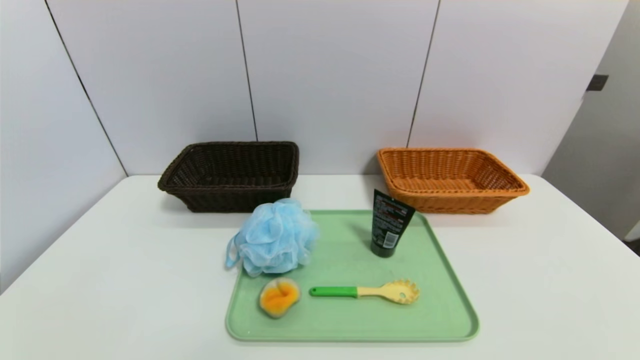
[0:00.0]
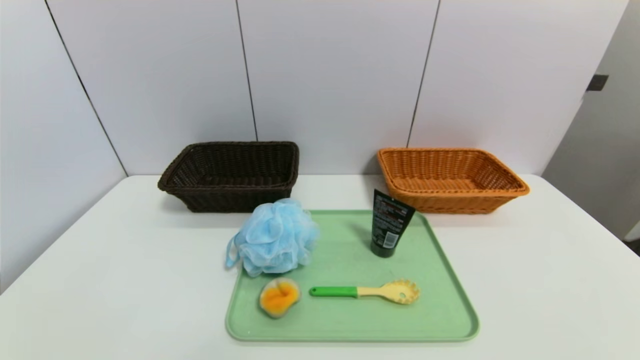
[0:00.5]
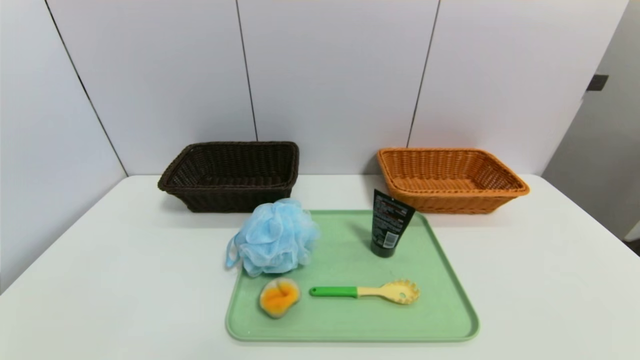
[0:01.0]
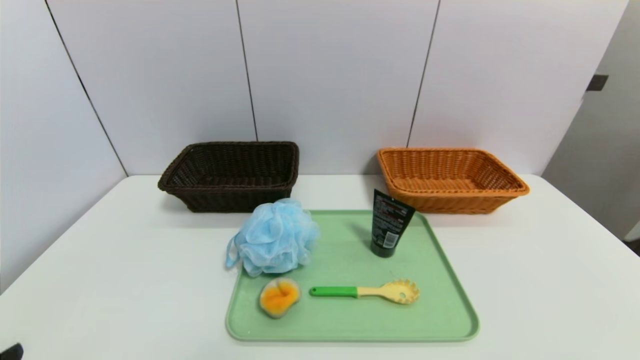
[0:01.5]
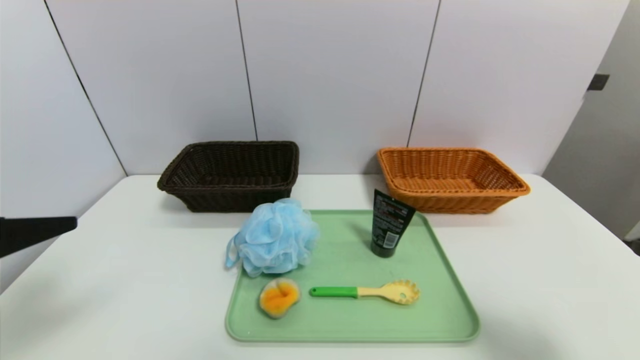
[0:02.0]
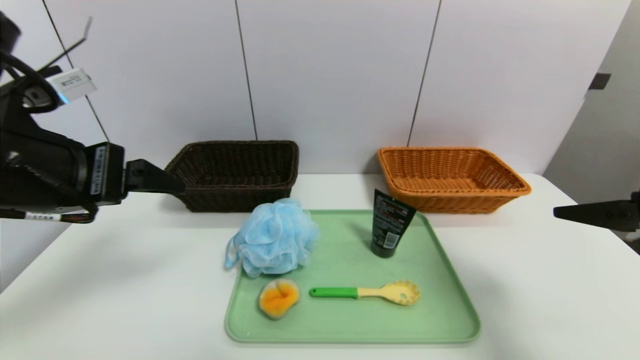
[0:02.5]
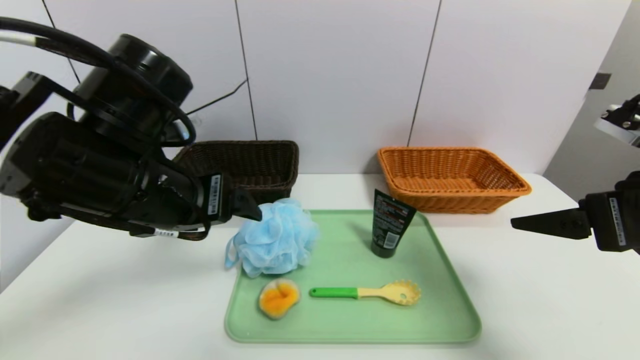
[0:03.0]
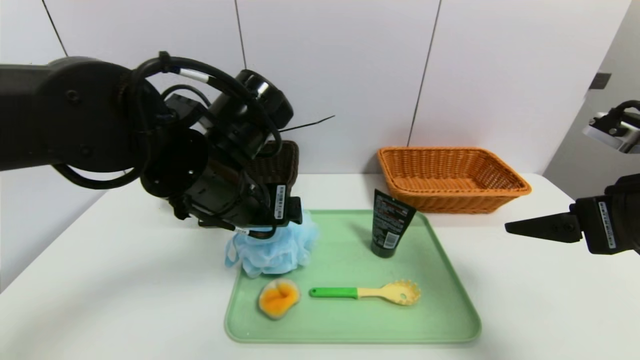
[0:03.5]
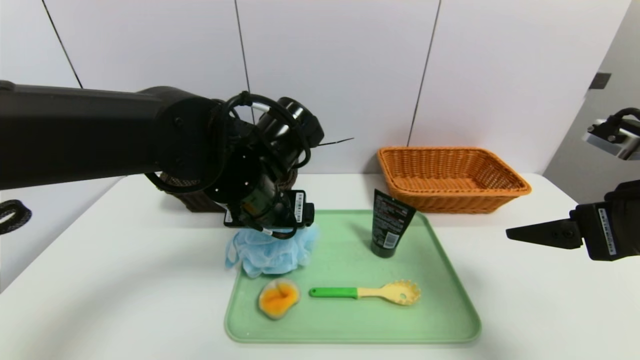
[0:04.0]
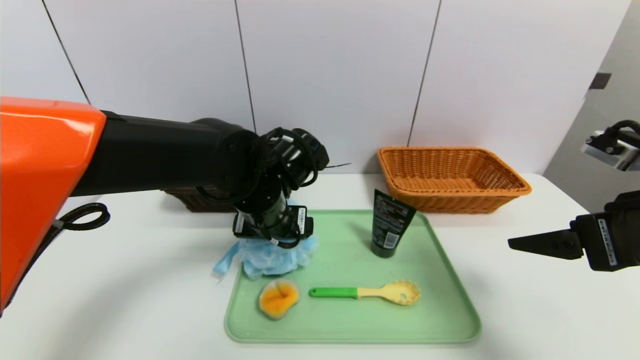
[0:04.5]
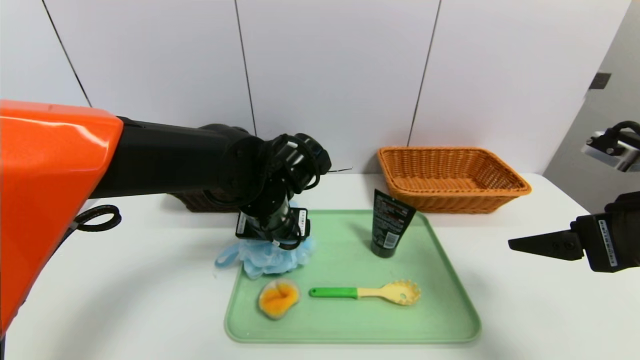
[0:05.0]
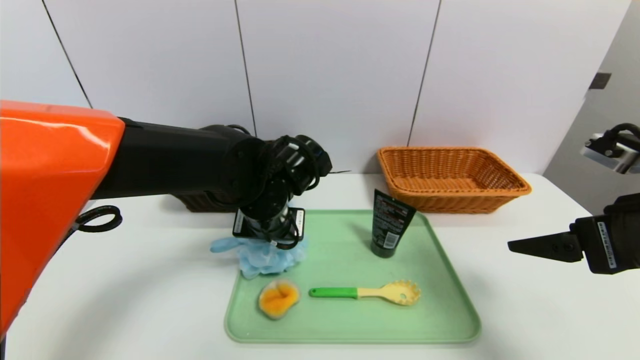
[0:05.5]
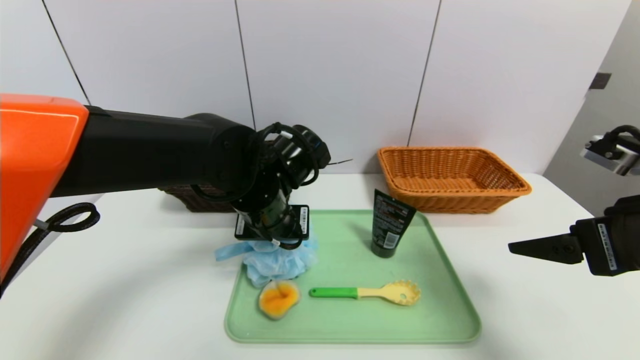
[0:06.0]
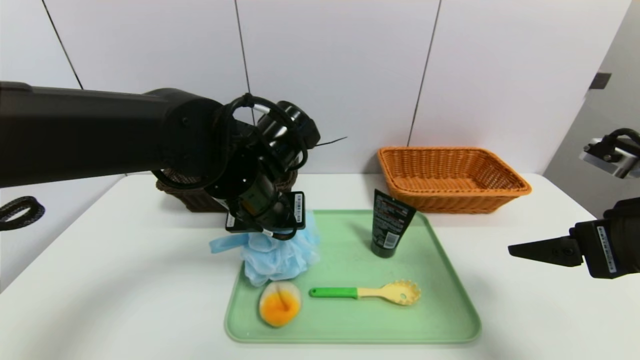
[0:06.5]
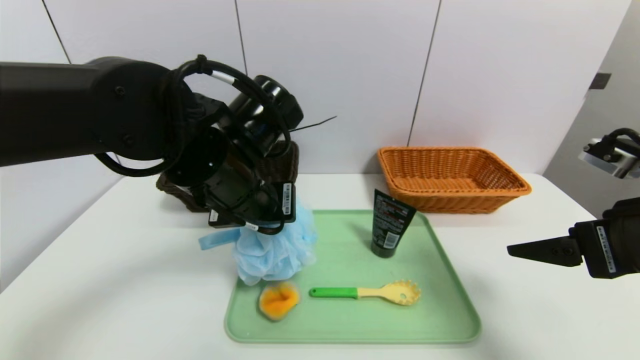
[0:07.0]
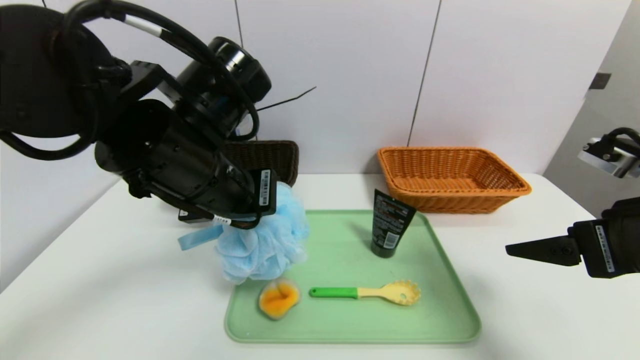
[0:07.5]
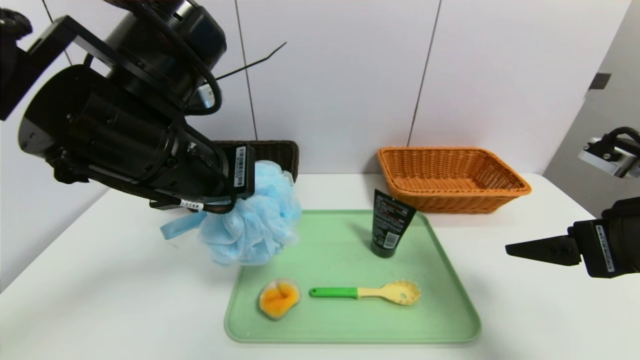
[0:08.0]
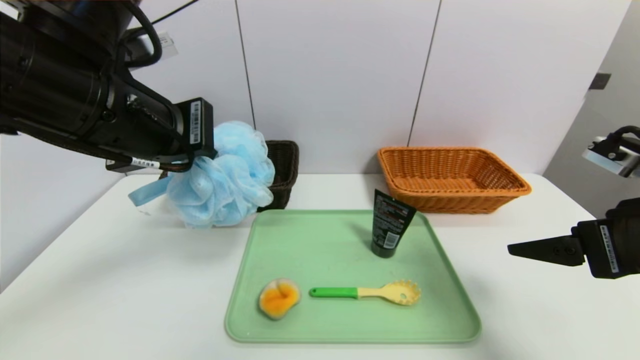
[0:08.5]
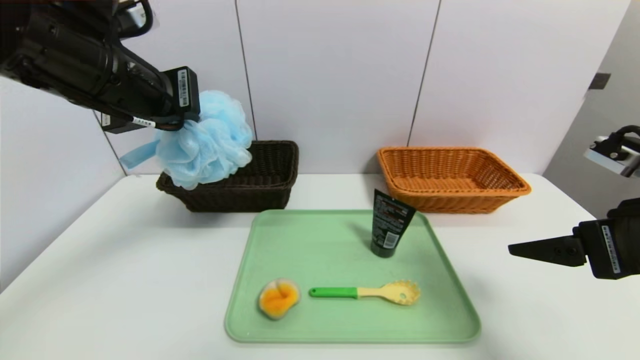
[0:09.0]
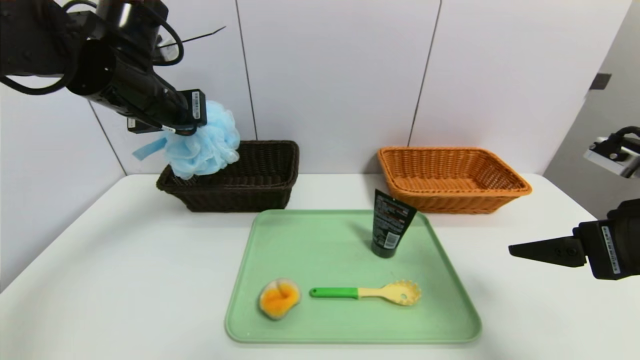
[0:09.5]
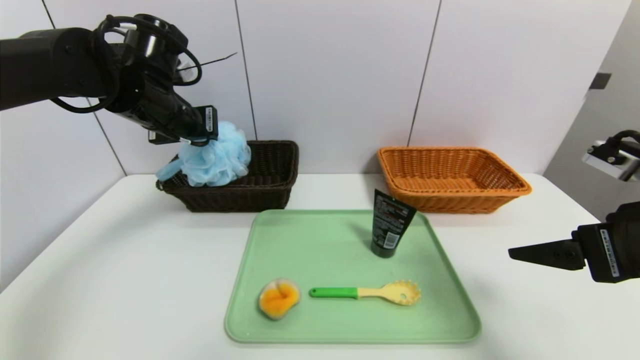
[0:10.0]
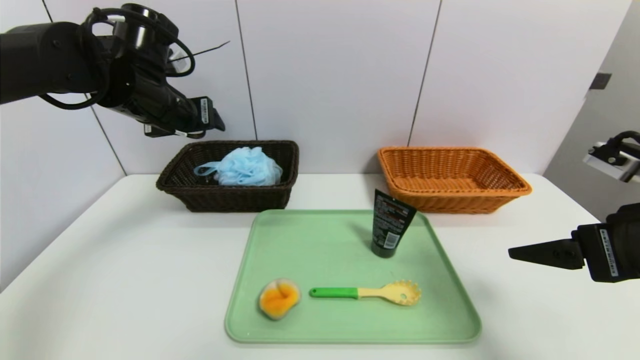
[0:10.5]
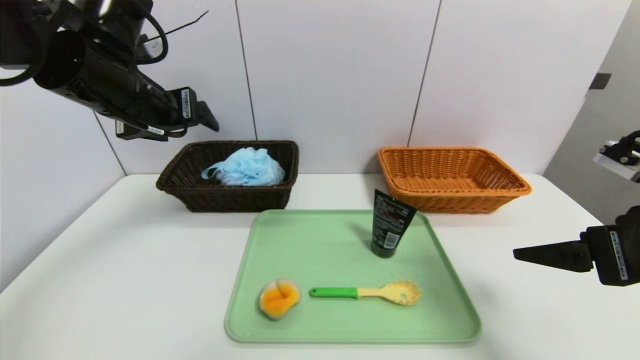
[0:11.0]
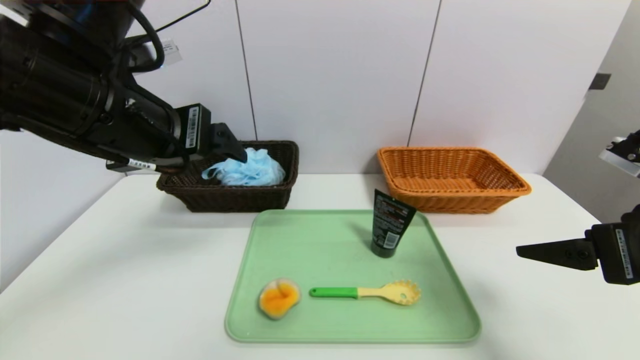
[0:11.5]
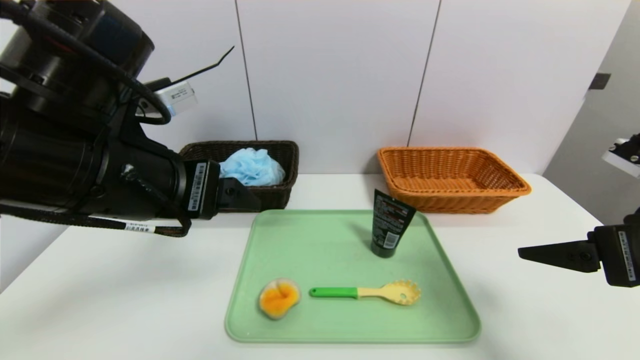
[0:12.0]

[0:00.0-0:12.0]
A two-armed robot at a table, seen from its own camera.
Task of the whole recording: place the food in the right basket with the right gripper, and place the non food items in the left basket with the left gripper.
Step, 0:00.0 to 0:10.5: Grasp the shower sphere and put it in the left basket.
0:00.0 to 0:02.0: Both grippers move upward and forward, roughly 25 cm.
0:02.0 to 0:04.0: The right gripper is displaced forward by about 10 cm, while the left gripper travels to the right and forward by some 30 cm.
0:04.0 to 0:06.0: The left gripper closes up.
0:06.0 to 0:08.0: The left gripper travels upward, backward and to the left by about 15 cm.
0:08.0 to 0:10.0: The left gripper shifts about 20 cm forward and to the left.
0:10.0 to 0:12.0: The left gripper goes about 20 cm backward, and opens.

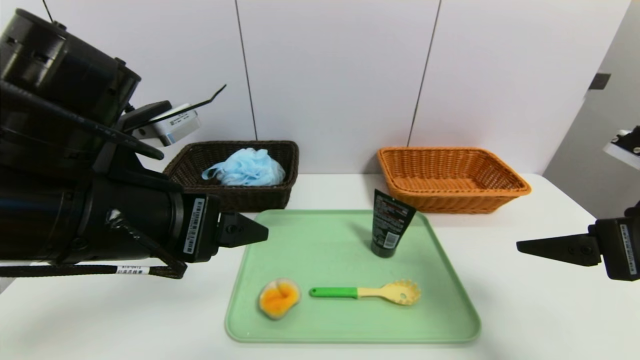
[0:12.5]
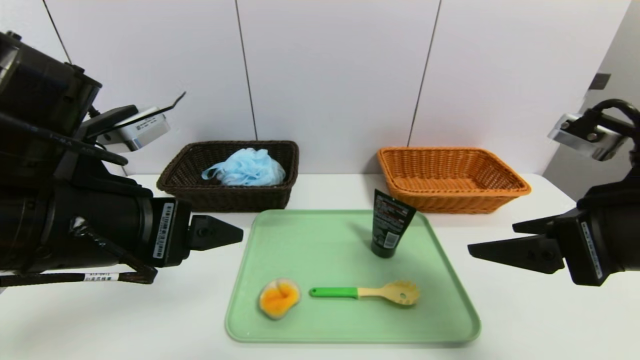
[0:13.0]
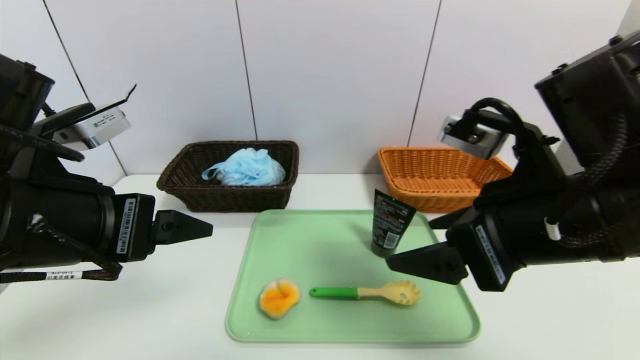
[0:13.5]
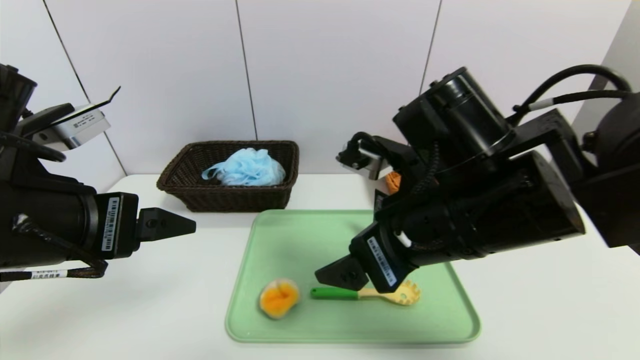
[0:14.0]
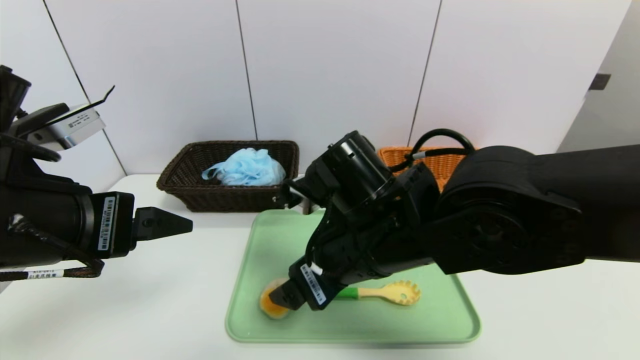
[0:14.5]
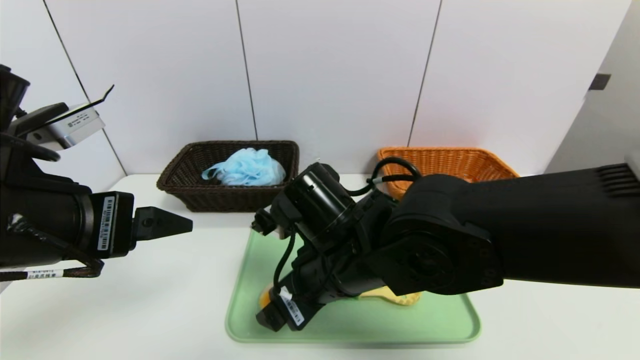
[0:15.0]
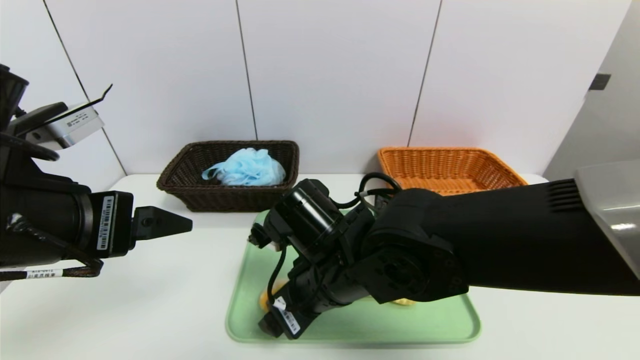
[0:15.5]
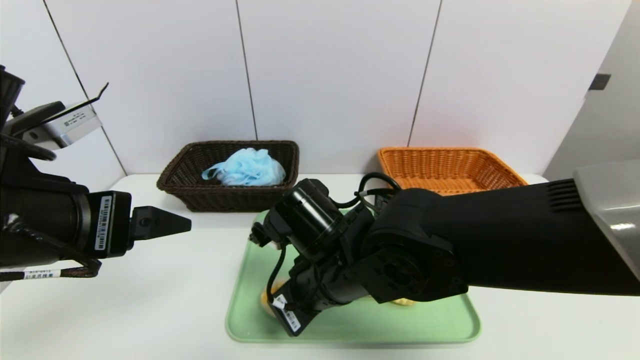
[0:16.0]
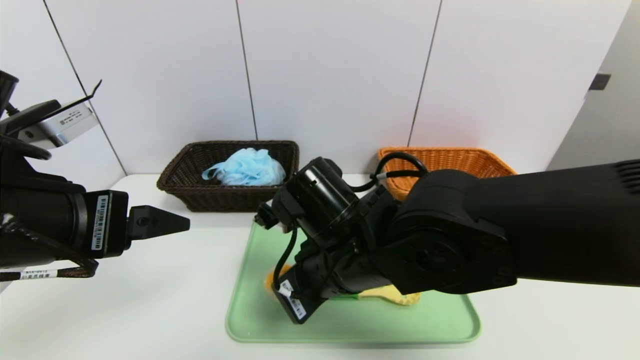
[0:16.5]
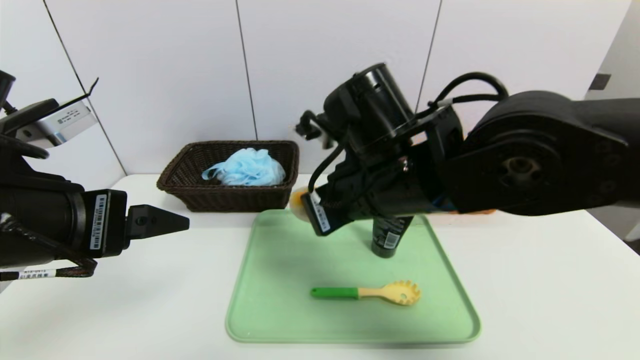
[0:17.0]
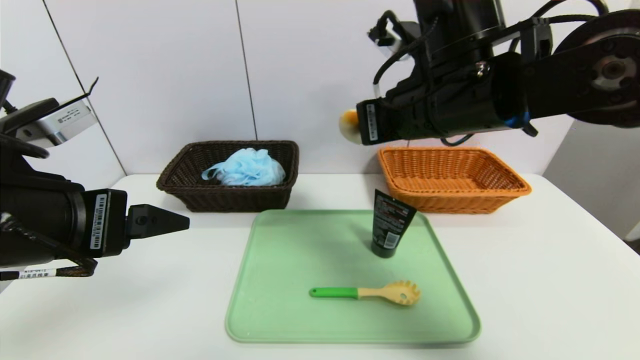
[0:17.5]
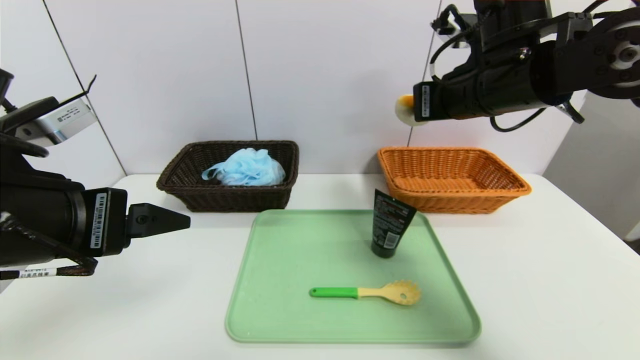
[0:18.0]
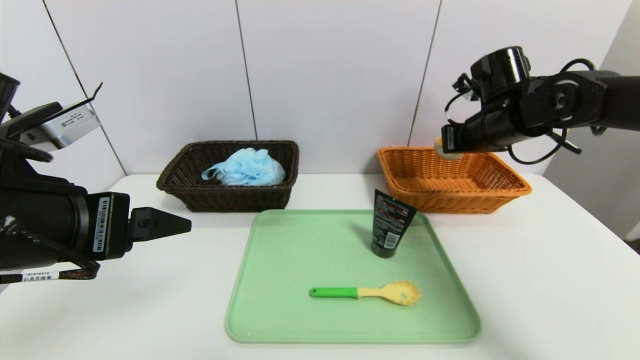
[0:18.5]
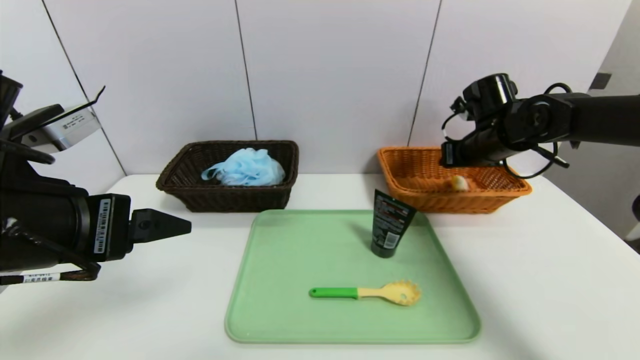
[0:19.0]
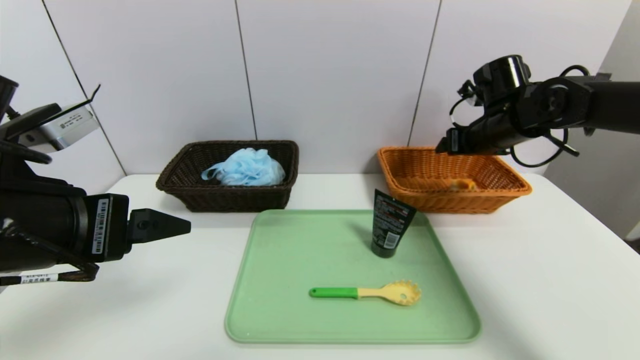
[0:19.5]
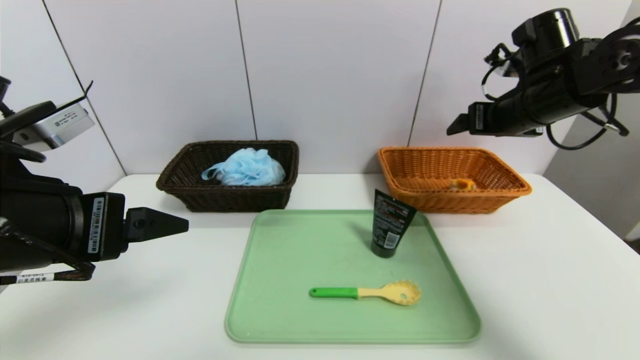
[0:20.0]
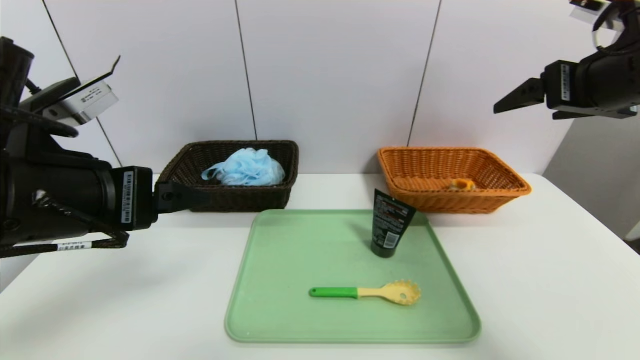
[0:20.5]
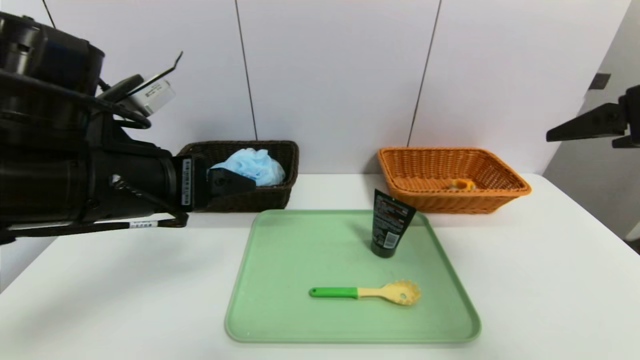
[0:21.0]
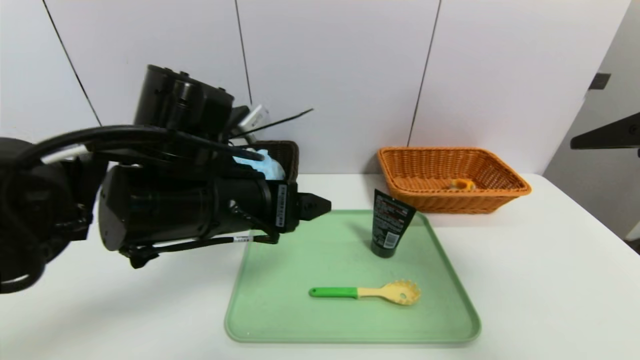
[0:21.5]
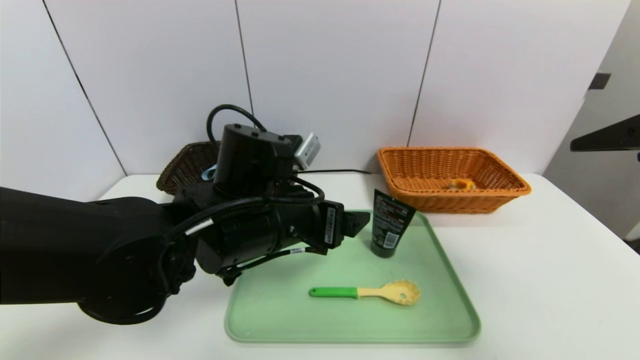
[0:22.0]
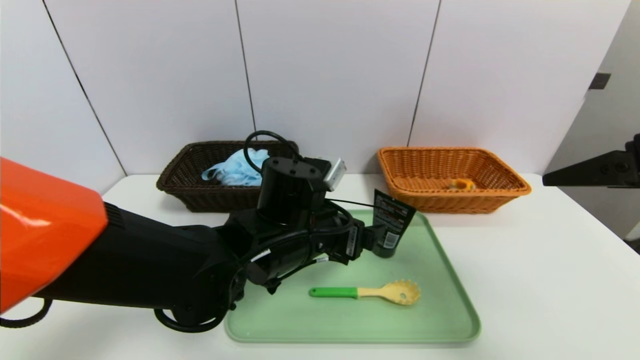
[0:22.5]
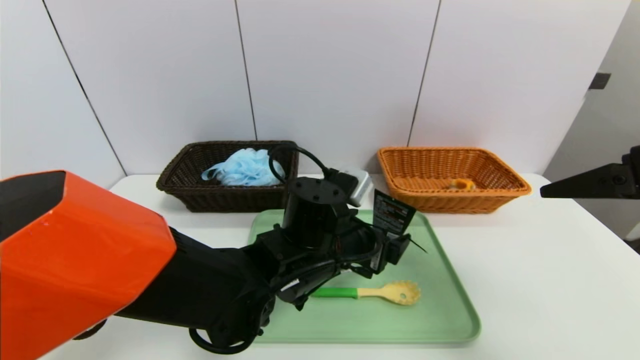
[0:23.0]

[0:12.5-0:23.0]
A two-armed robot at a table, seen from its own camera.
Task of the whole recording: place the food in the right basket with the right gripper, and place the non food items in the left basket with the left gripper.
Step, 0:12.5 to 0:19.0: Grasp the egg yolk pastry and put it in the right basket.
0:12.5 to 0:14.5: The right gripper heads to the left, covering some 25 cm. Meanwhile the left gripper goes about 5 cm to the left.
0:14.5 to 0:16.5: The right gripper closes up.
0:16.5 to 0:19.0: The right gripper shifts roughly 30 cm to the right and forward, and opens its fingers.
0:19.0 to 0:21.0: The left gripper changes place by roughly 5 cm, while the right gripper travels backward and upward by some 30 cm, and opens up.
0:21.0 to 0:23.0: The left gripper moves to the right and downward, approximately 25 cm.
